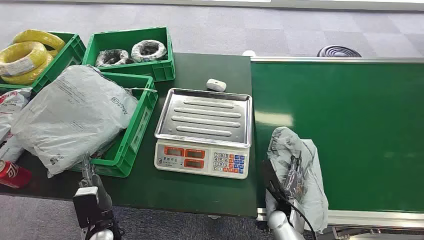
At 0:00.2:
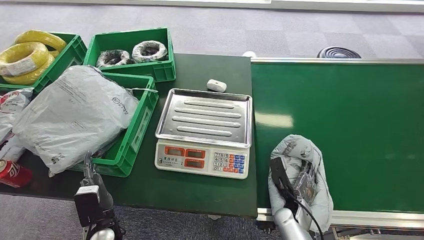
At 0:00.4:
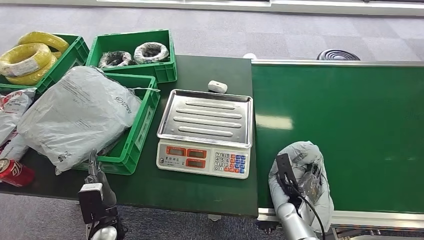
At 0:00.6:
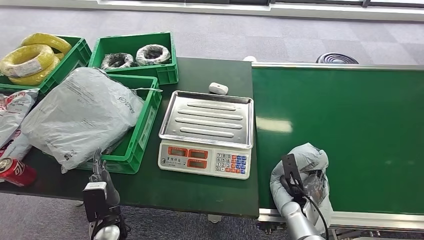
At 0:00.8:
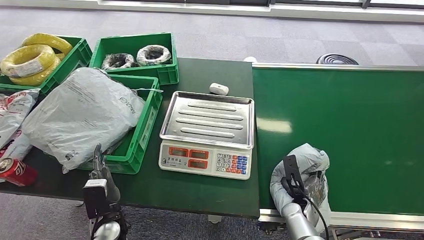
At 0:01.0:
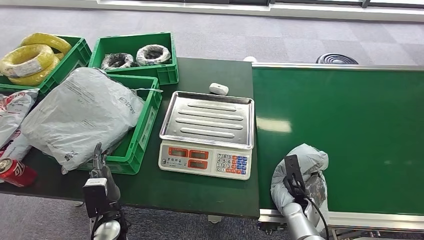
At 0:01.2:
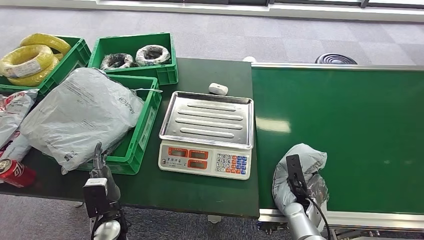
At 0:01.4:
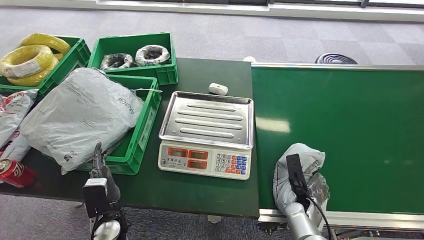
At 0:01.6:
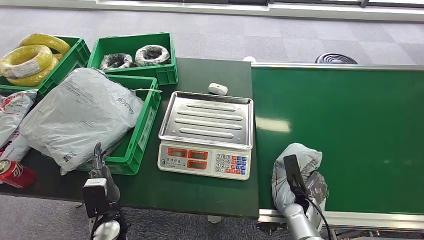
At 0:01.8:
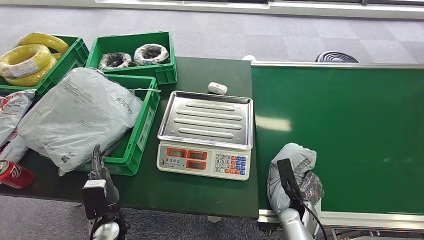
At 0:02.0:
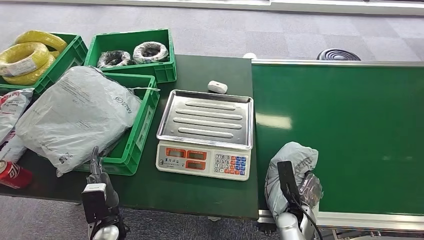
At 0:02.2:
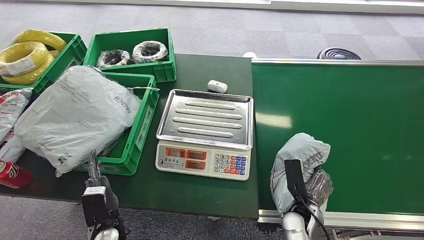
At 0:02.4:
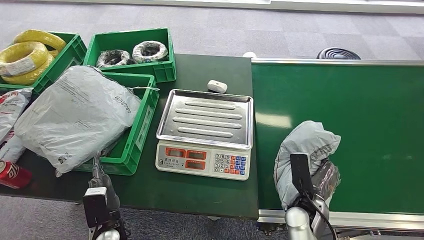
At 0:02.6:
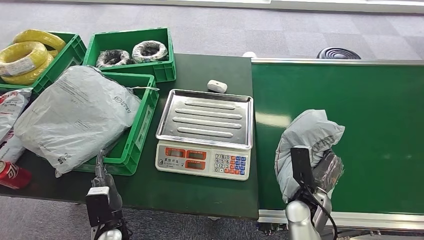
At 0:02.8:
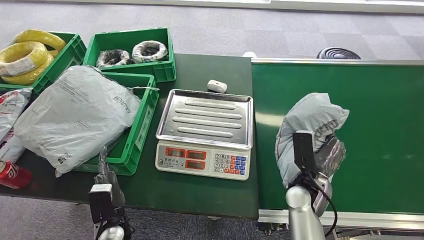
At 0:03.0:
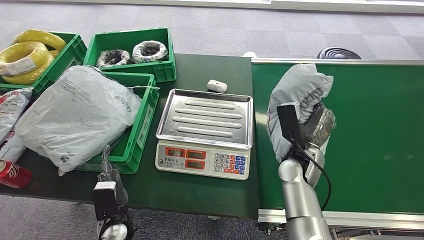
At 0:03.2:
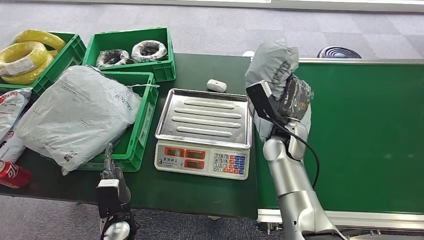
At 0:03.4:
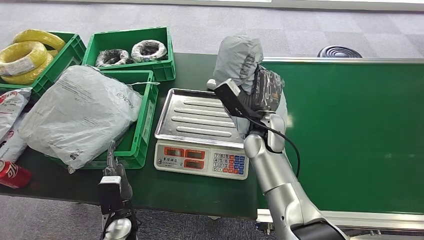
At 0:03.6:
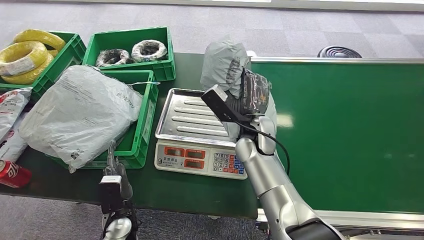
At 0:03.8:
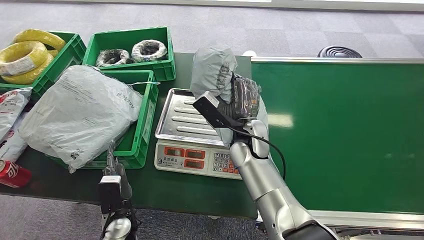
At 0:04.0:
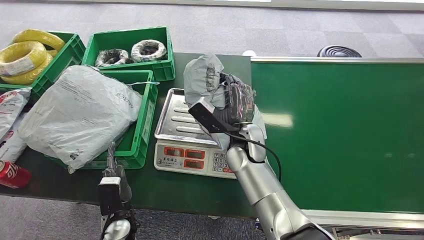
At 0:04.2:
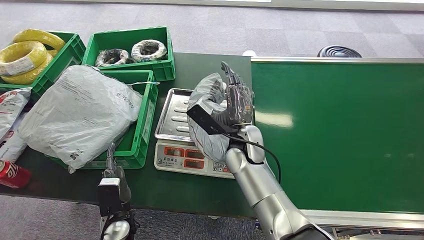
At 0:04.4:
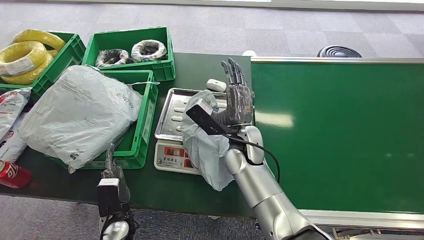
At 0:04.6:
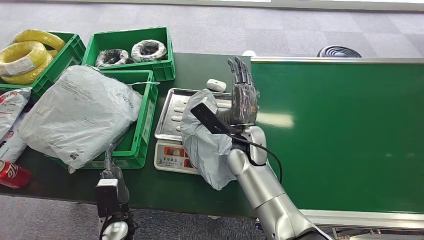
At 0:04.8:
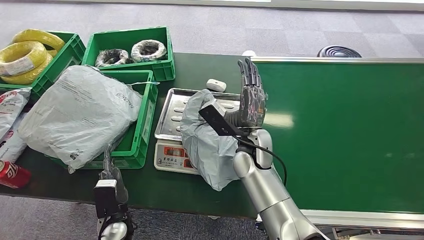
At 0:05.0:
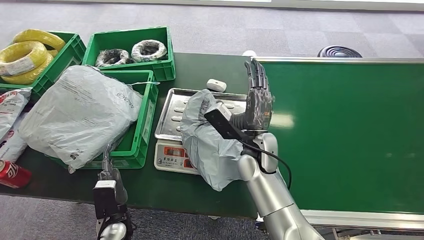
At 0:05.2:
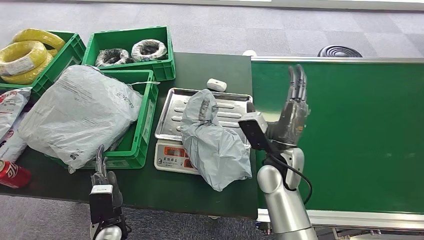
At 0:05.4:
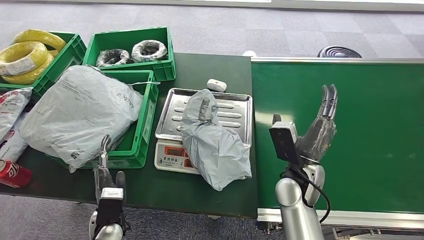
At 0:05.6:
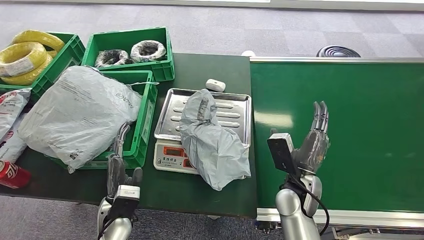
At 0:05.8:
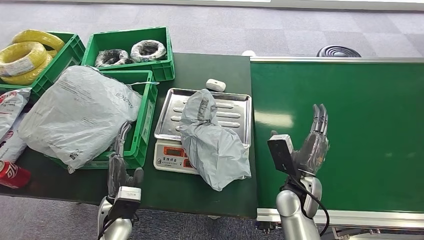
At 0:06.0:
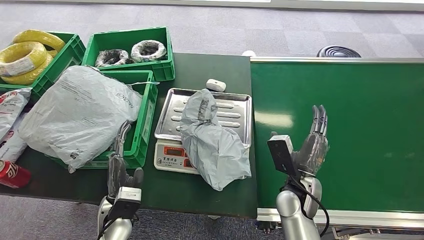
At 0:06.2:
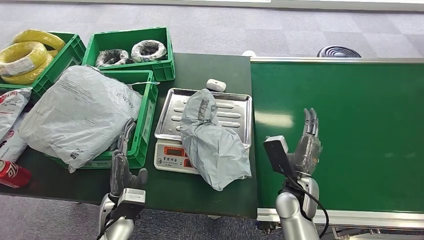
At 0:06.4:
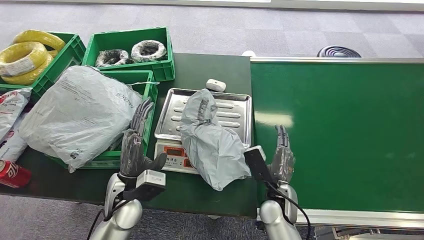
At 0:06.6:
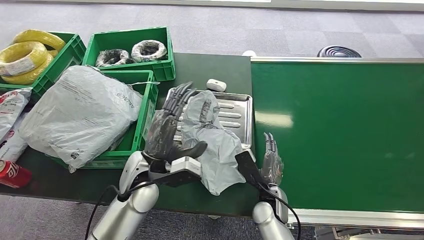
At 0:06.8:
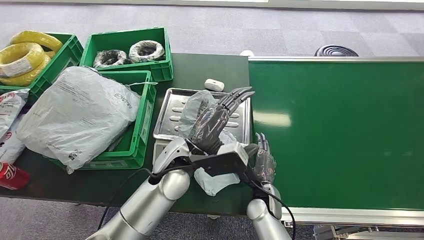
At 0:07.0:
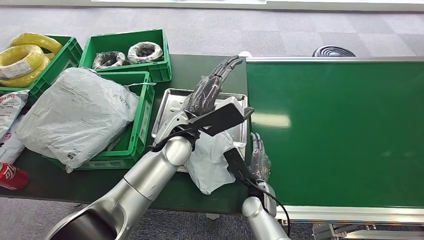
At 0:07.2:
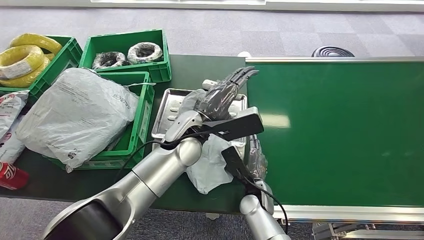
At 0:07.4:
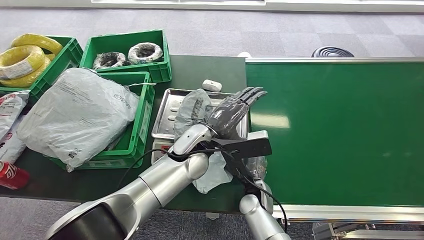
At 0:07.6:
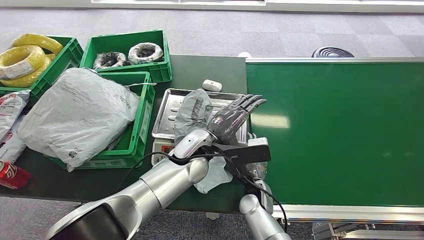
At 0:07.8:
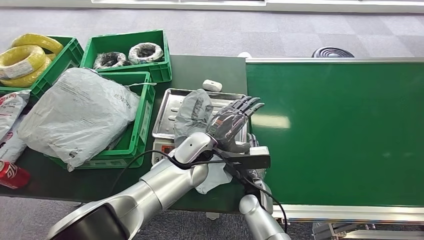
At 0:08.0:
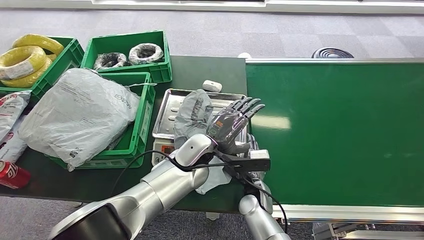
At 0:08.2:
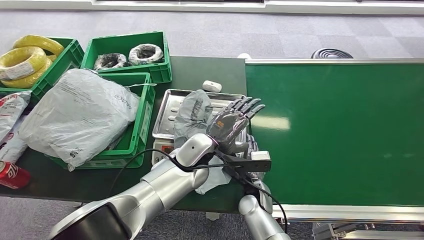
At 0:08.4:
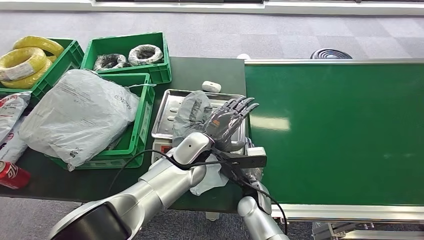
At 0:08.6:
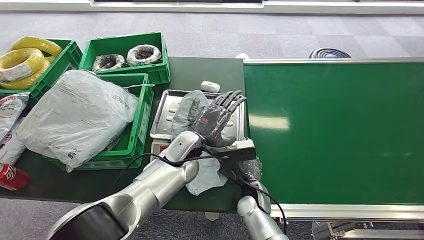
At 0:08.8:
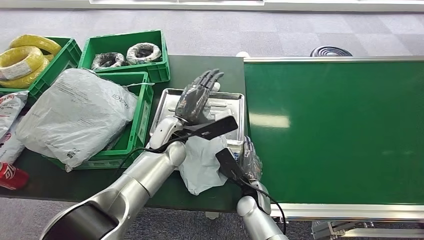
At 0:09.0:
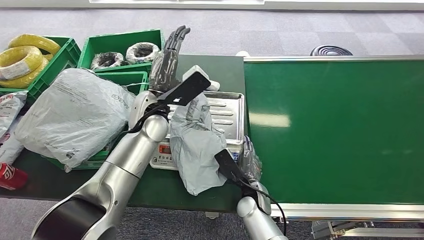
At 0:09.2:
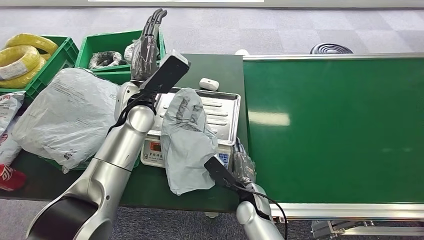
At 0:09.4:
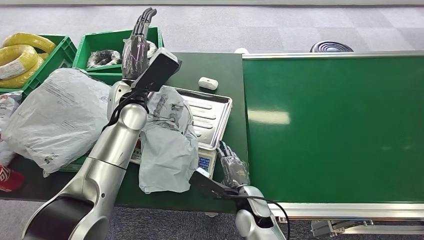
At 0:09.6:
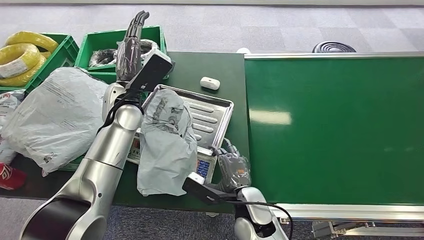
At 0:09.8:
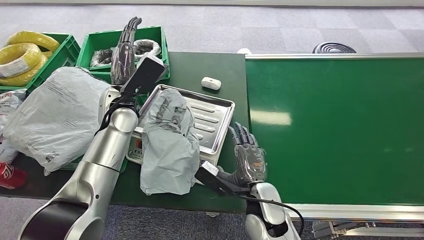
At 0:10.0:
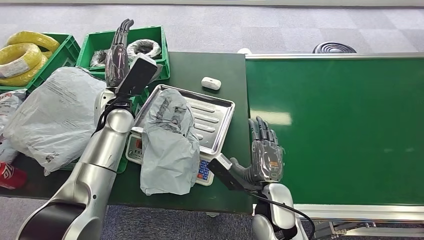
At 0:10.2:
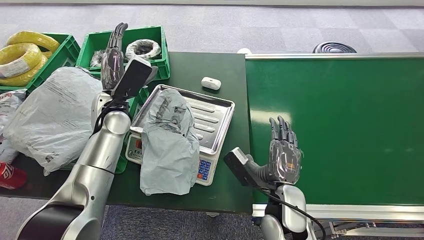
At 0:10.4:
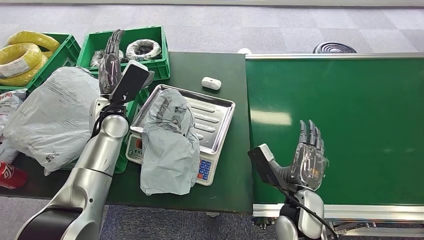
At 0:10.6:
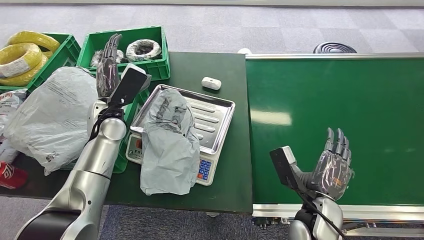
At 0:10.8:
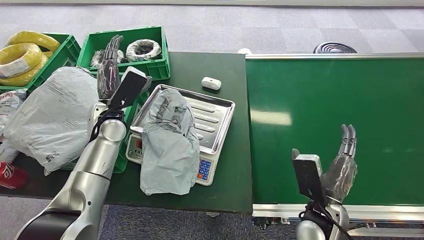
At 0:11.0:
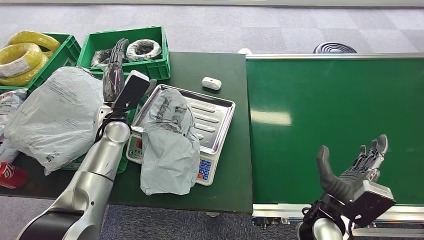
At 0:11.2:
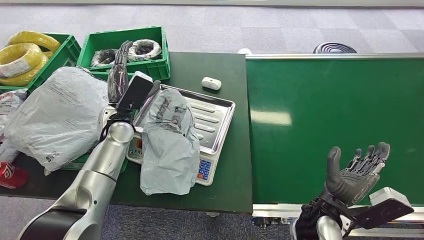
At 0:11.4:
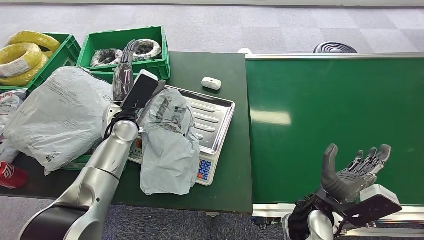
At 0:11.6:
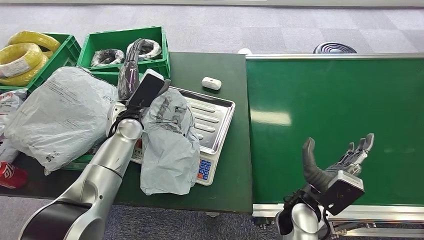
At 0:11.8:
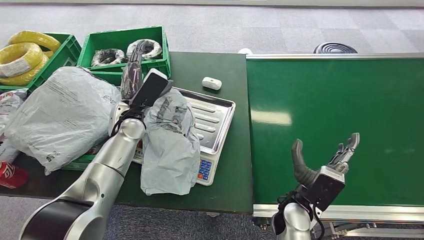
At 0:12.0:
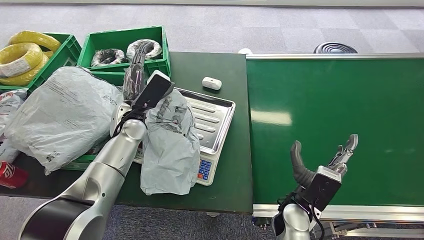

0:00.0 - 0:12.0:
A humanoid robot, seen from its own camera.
Step, 0:00.0 - 0:02.8: Pick up the package from the conveyor belt.
Step, 0:03.0 - 0:05.0: Place the package onto the inbound machine.
0:04.4 - 0:06.0: The right hand travels to the right, backward and downward by about 15 cm, while the left hand moves upward, roughly 5 cm.

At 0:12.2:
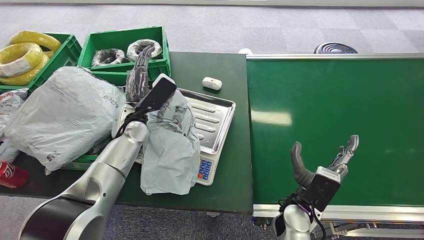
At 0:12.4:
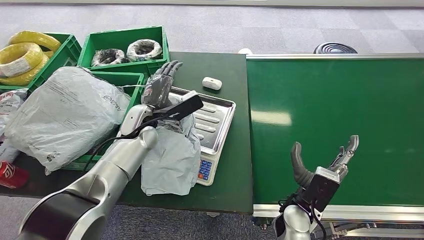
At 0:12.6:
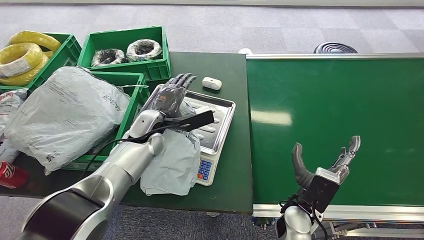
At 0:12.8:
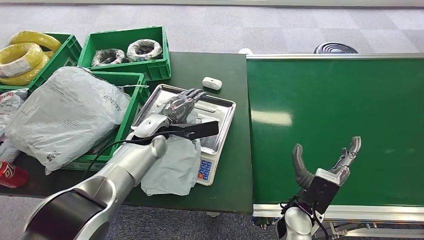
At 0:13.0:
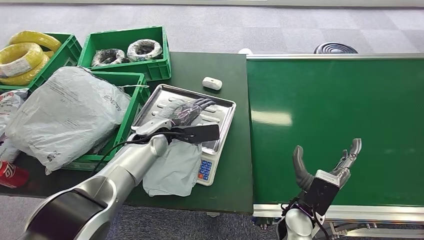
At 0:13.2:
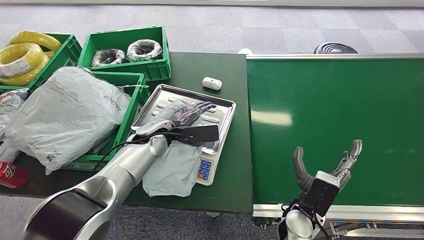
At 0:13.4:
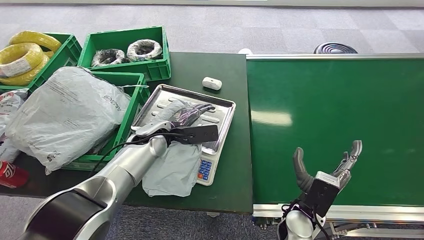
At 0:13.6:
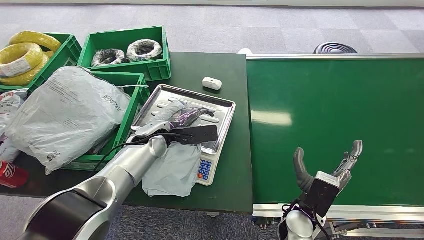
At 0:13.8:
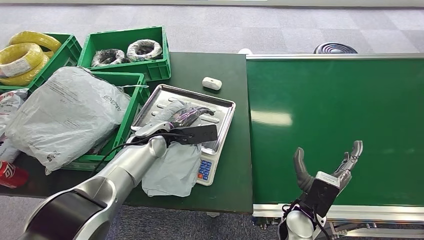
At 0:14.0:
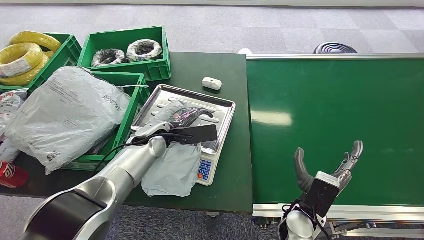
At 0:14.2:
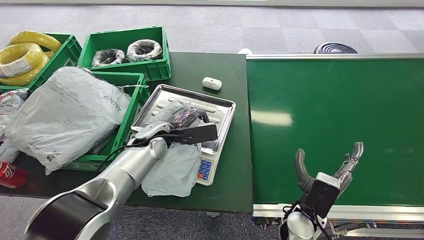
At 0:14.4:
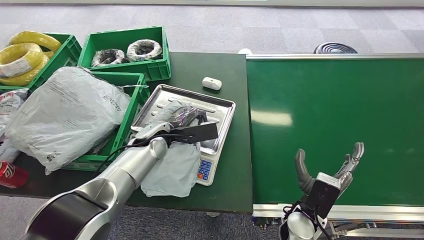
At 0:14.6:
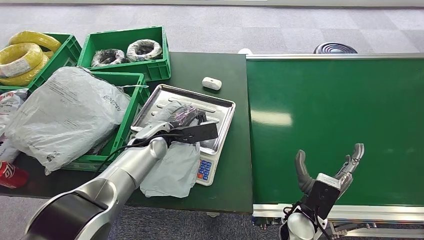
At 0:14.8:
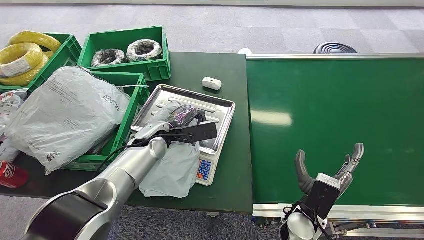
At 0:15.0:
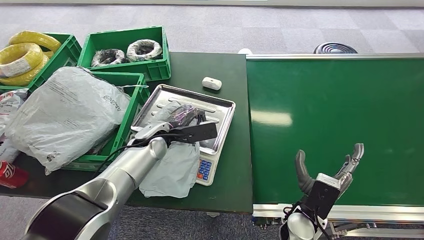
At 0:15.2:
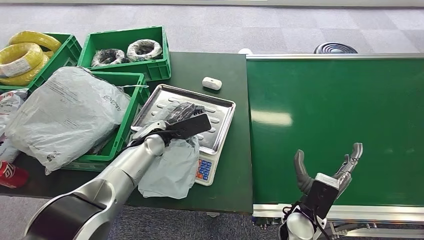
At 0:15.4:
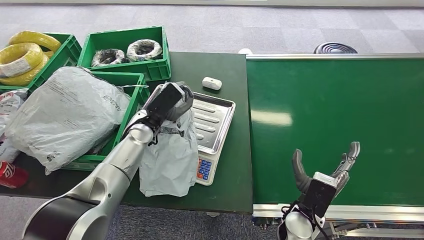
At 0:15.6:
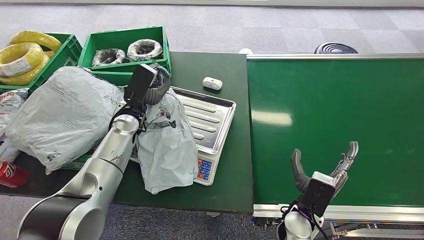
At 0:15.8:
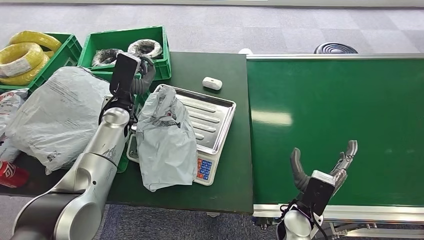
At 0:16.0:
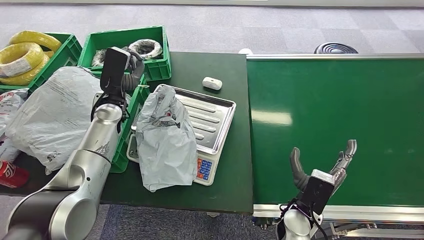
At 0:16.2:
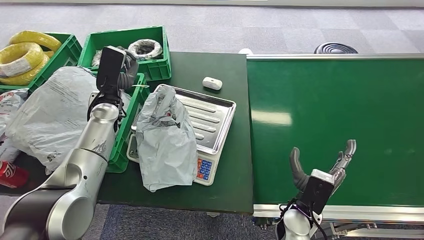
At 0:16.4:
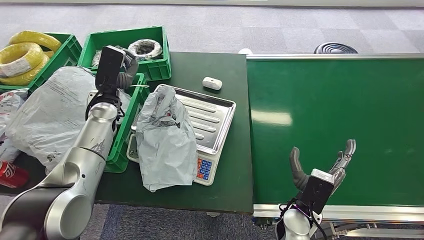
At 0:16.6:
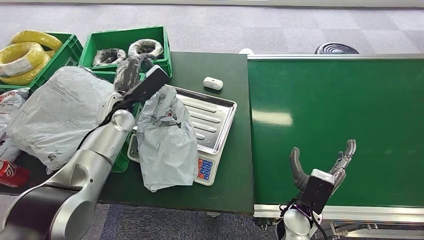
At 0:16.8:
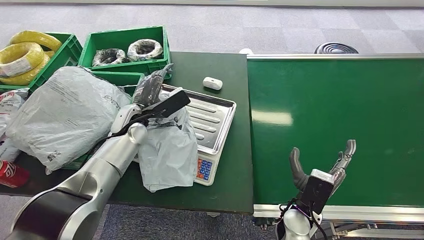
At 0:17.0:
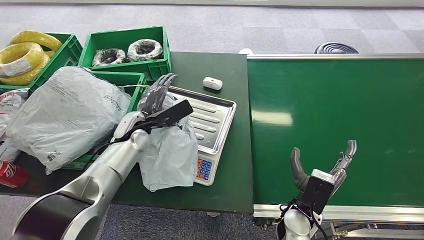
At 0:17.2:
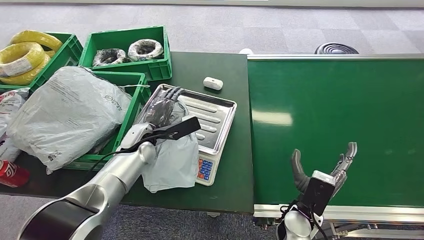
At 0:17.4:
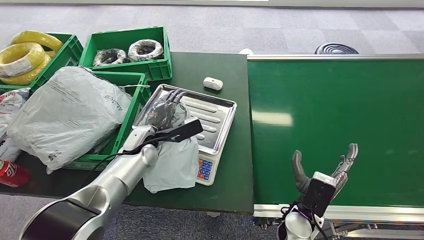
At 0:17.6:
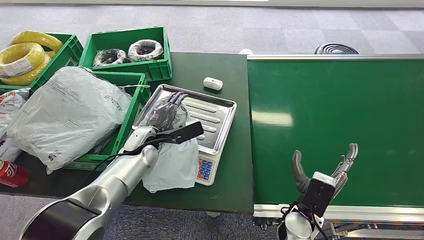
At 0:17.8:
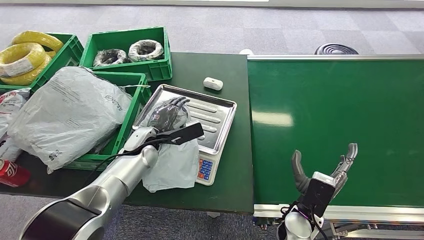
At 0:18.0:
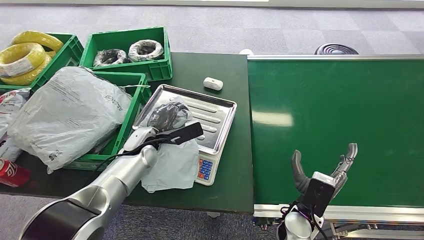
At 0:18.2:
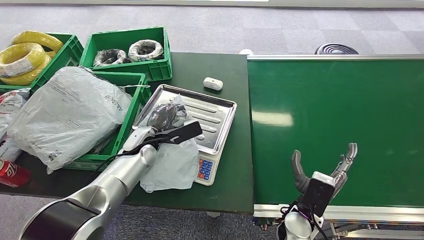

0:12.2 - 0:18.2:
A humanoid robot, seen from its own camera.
0:12.2 - 0:13.8: The left hand ends up some 5 cm from where it was.
0:13.8 - 0:15.2: The hands make only small movements.
0:16.6 - 0:18.2: The left hand heads downward and to the right, covering some 10 cm.
